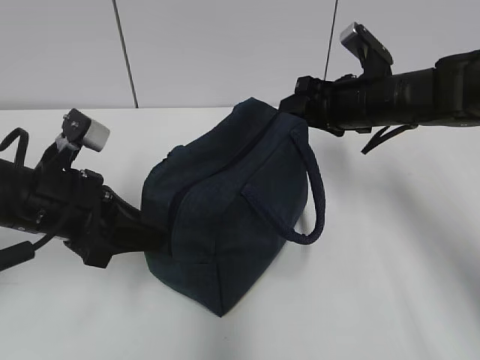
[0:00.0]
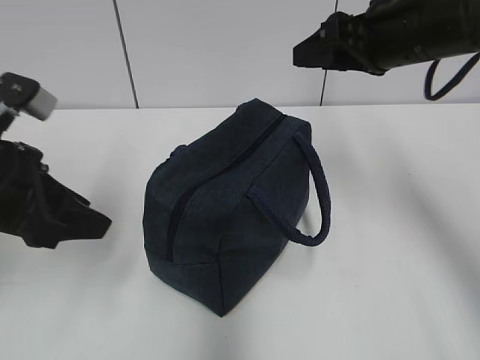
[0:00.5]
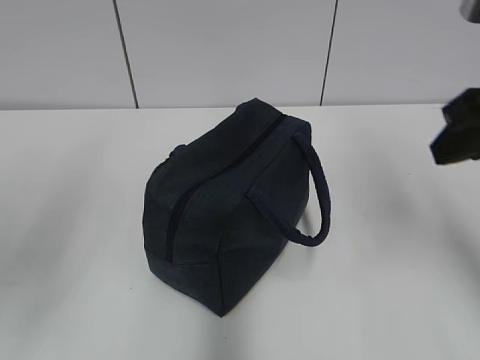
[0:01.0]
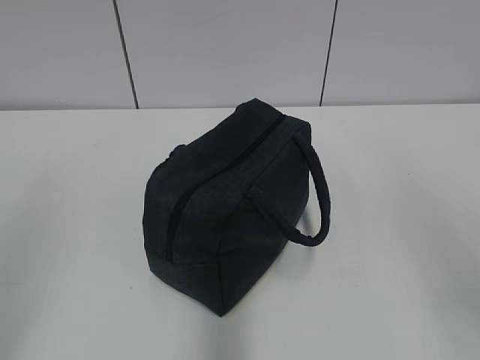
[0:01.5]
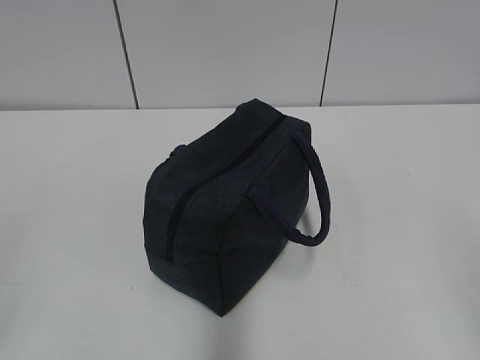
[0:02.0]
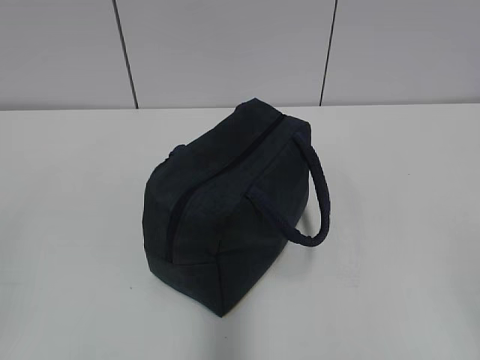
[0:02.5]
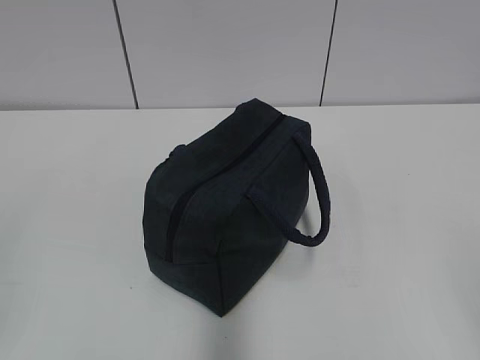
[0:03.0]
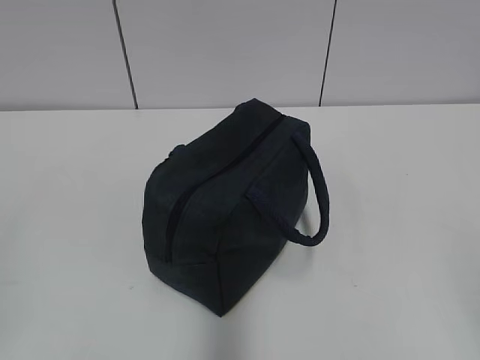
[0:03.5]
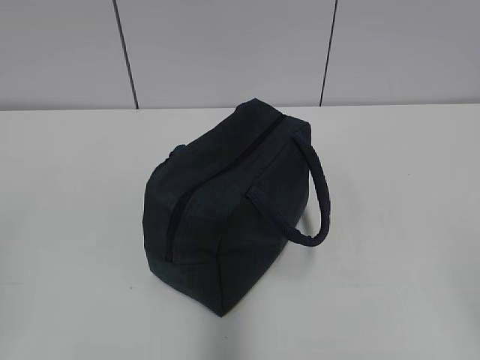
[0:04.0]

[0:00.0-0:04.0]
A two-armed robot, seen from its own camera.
0:00.0 to 0:02.0: The left gripper travels backward, to the left and upward by some 30 cm. Meanwhile the right gripper travels backward by some 40 cm.

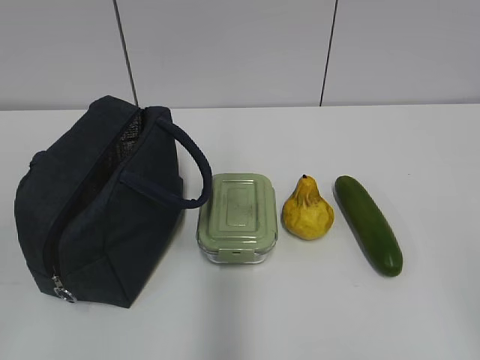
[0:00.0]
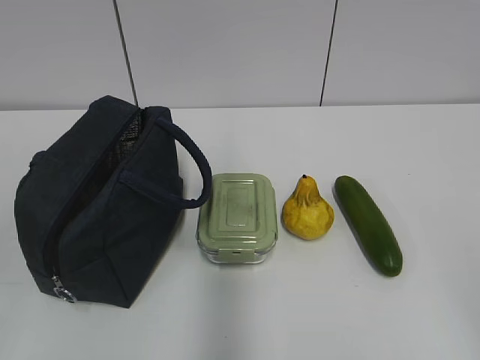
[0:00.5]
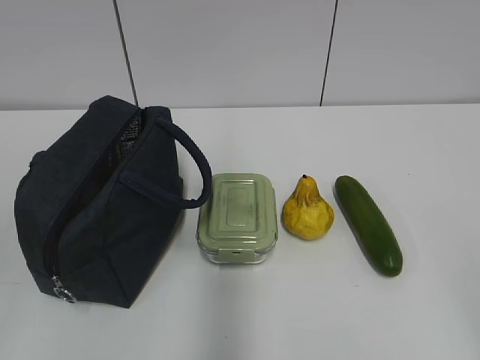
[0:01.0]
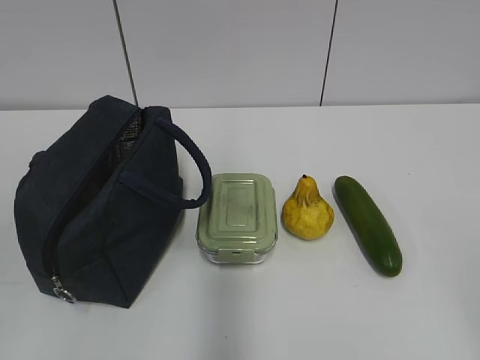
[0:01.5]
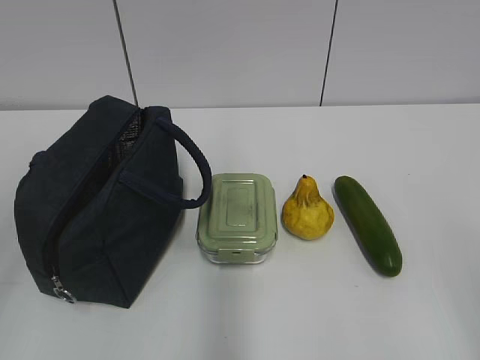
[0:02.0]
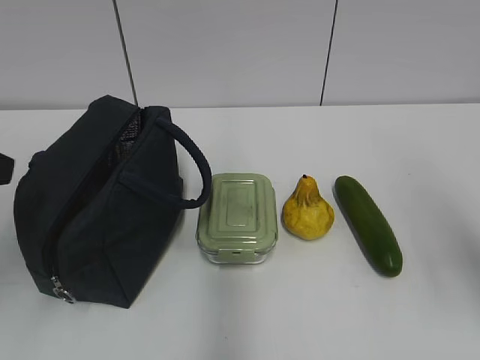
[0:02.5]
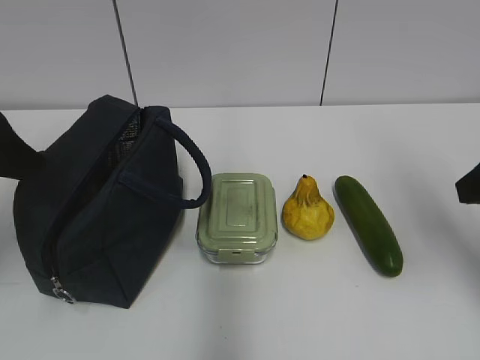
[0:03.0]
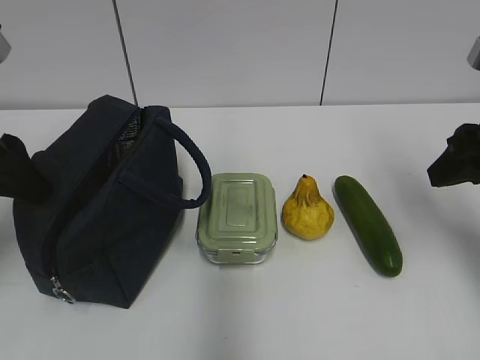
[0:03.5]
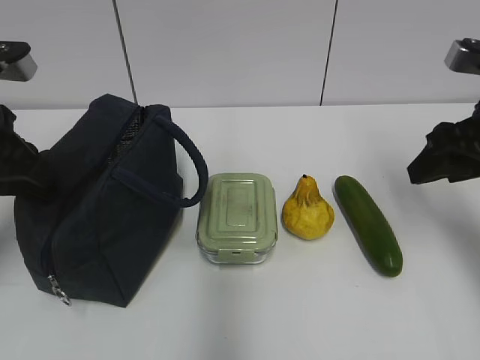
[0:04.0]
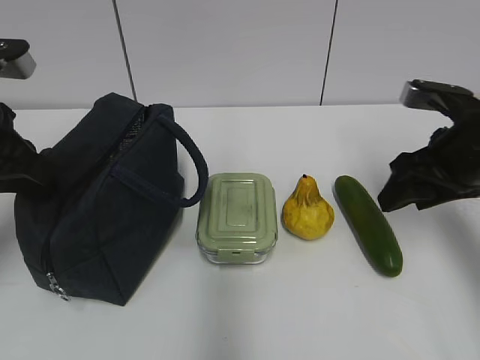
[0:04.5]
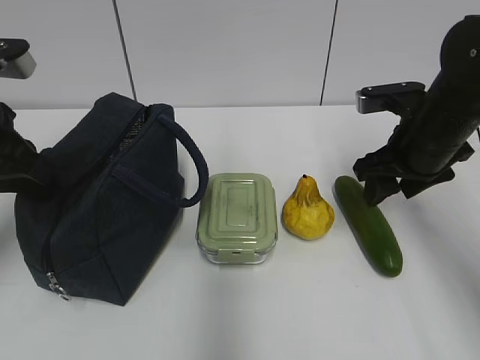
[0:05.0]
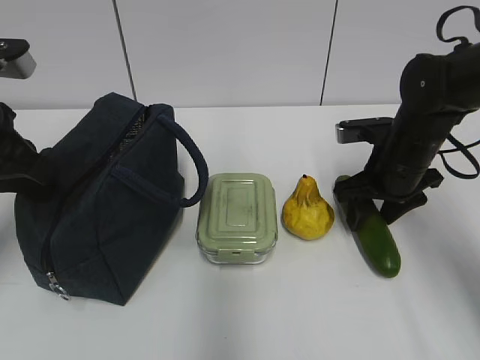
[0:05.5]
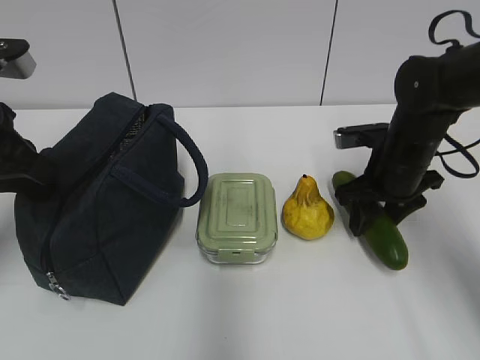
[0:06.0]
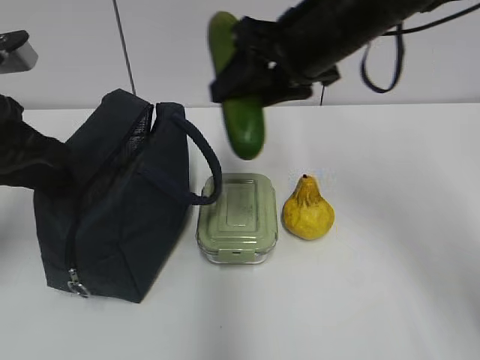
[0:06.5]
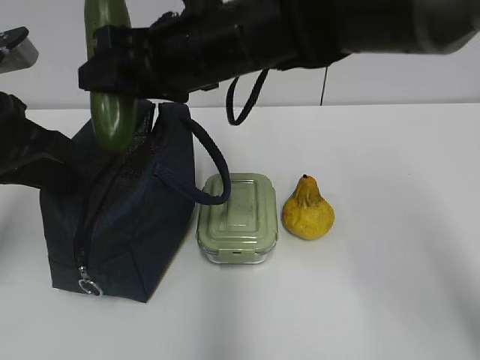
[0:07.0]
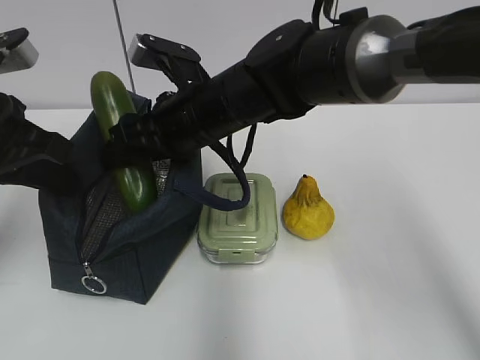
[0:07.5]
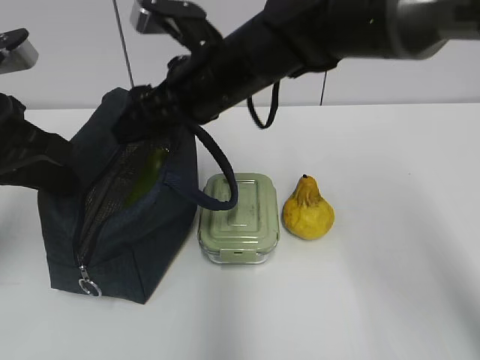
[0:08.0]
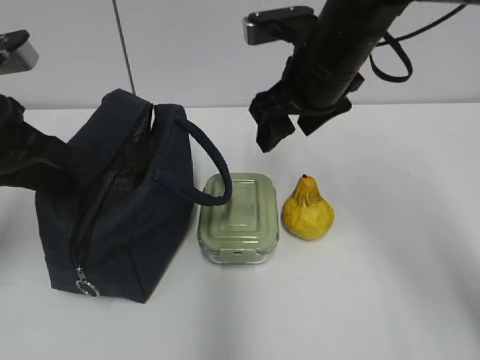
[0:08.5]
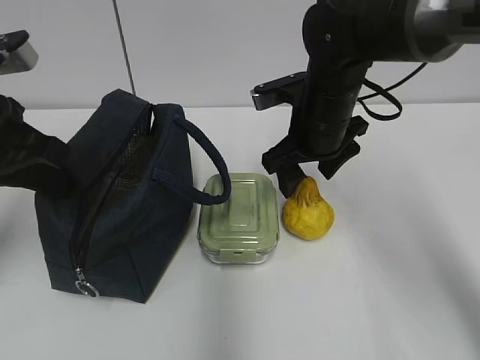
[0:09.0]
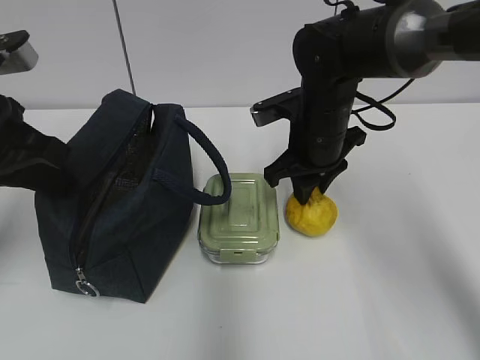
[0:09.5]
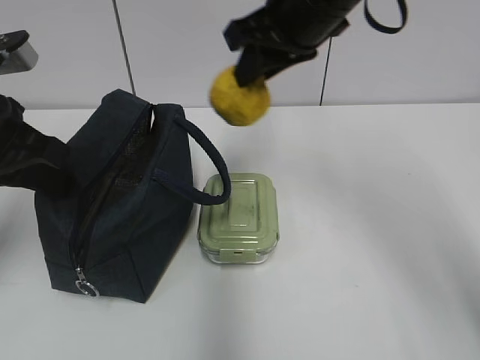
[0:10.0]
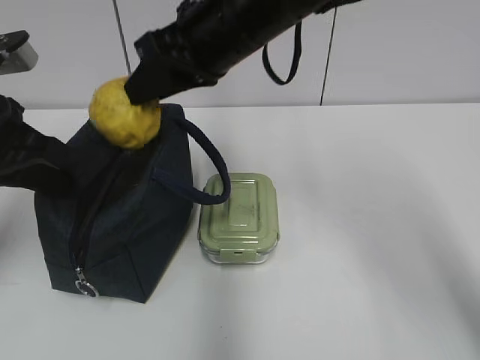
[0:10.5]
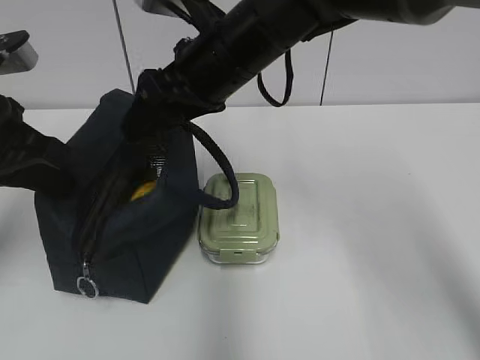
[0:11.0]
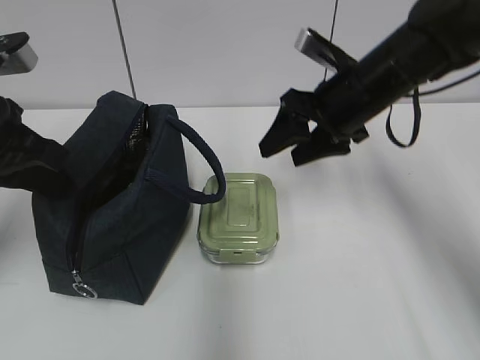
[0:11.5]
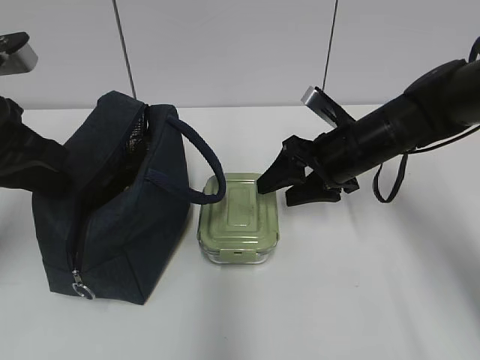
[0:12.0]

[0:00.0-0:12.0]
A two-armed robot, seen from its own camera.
Step, 0:00.0 to 0:05.5: Grab the cucumber with your right hand.
Step, 0:08.5 to 0:09.0: Grab the pear with your right hand.
Step, 0:09.5 to 0:10.5: Place it into the bag with your right hand.
0:02.0 to 0:04.0: Both grippers travel together forward, approximately 25 cm. The left gripper closes its fingers.
0:04.0 to 0:06.0: The right gripper moves downward, forward and to the left, about 15 cm.
0:06.0 to 0:08.0: The right gripper shifts some 25 cm to the left and upward.
0:08.0 to 0:10.0: The right gripper shifts roughly 10 cm to the right and upward, and closes.
0:10.0 to 0:12.0: The right gripper heads downward and to the right, covering about 20 cm, and opens up.

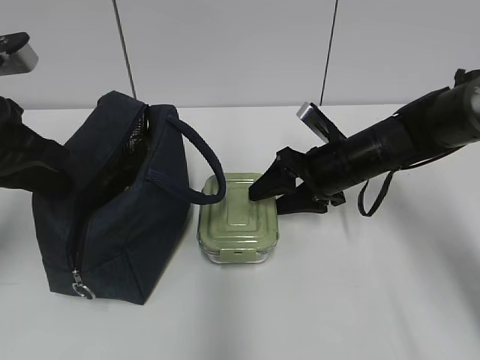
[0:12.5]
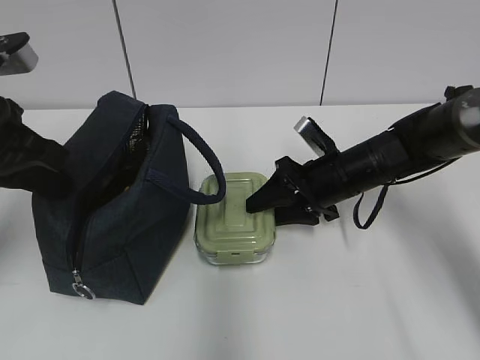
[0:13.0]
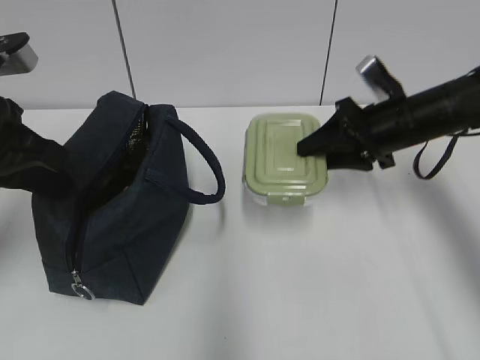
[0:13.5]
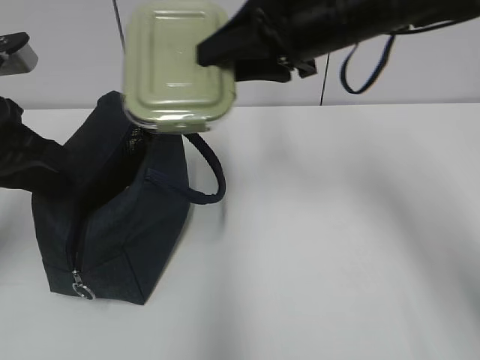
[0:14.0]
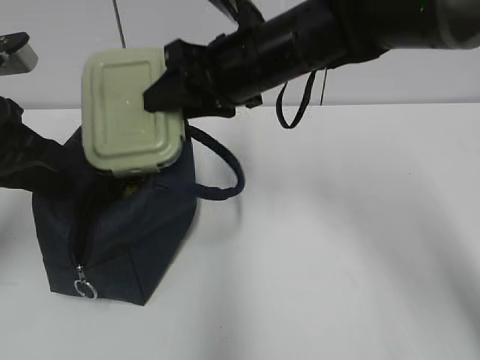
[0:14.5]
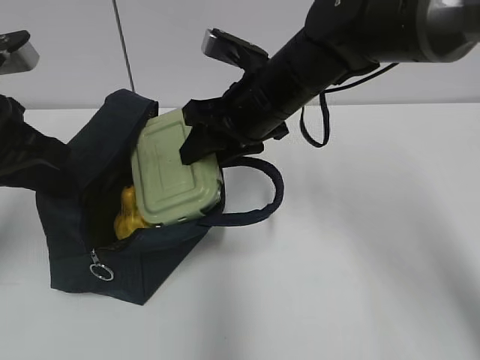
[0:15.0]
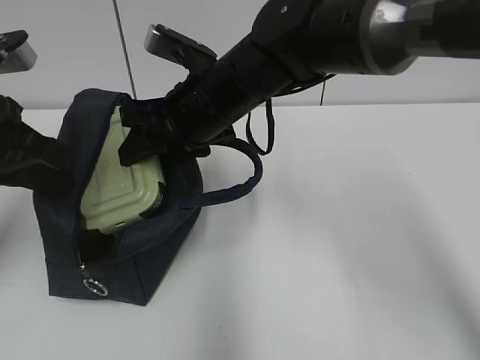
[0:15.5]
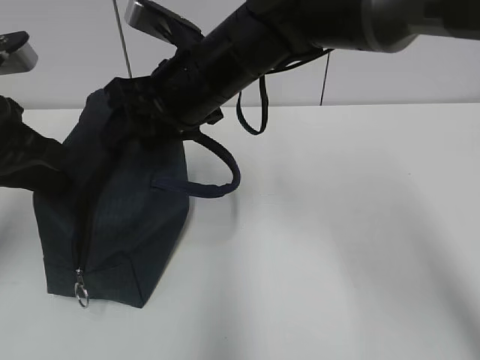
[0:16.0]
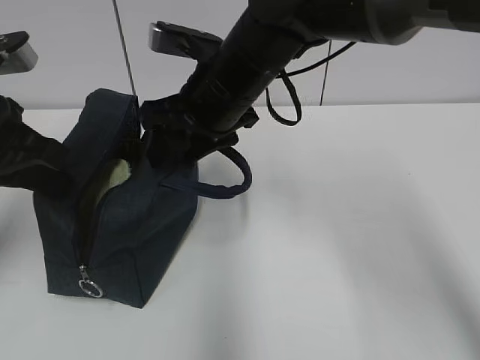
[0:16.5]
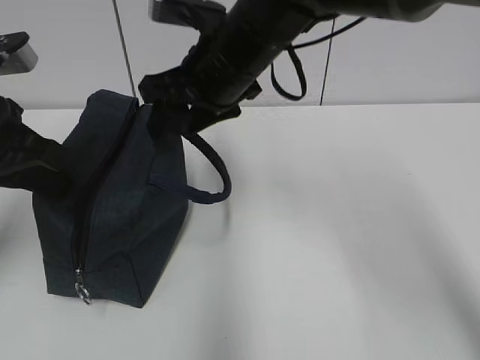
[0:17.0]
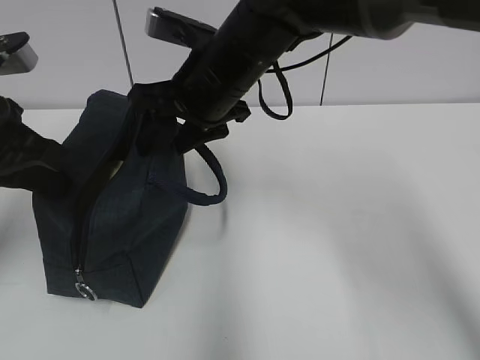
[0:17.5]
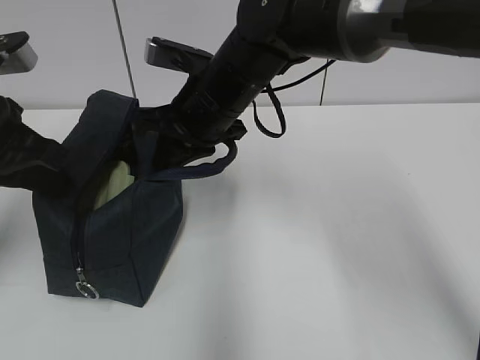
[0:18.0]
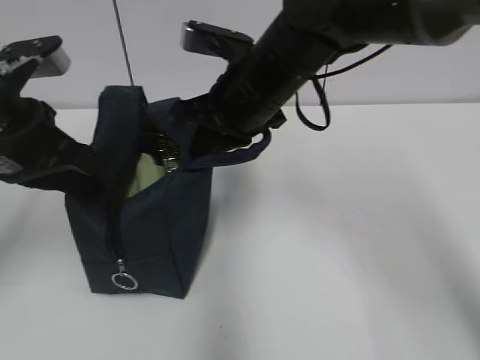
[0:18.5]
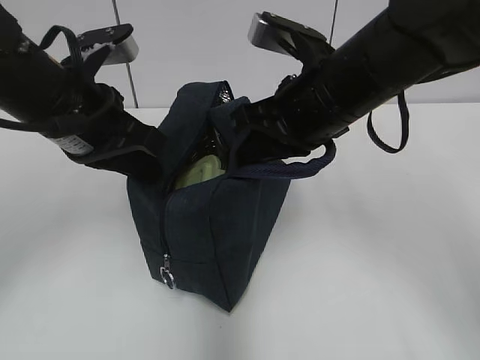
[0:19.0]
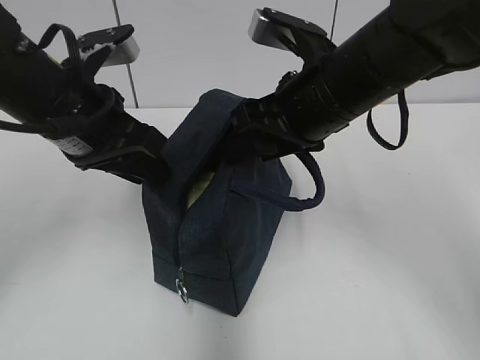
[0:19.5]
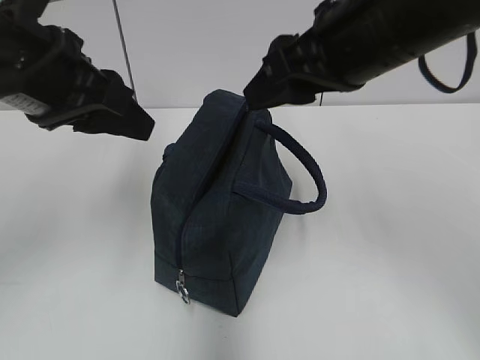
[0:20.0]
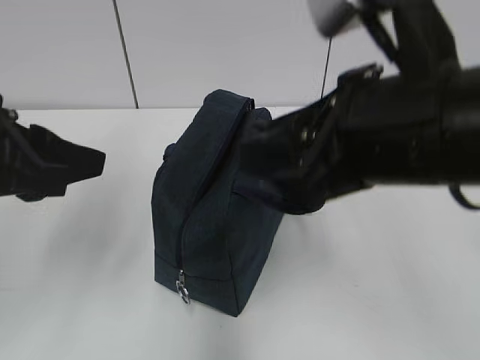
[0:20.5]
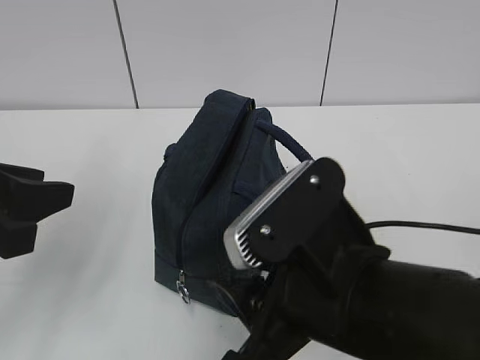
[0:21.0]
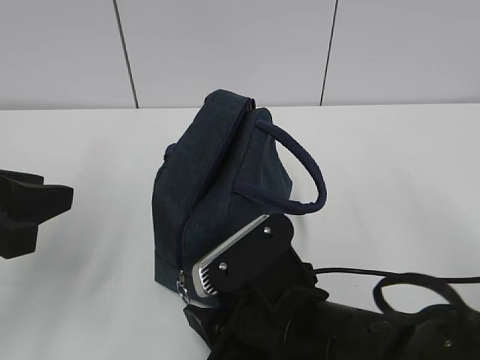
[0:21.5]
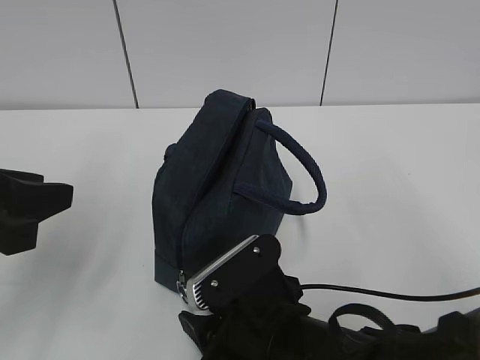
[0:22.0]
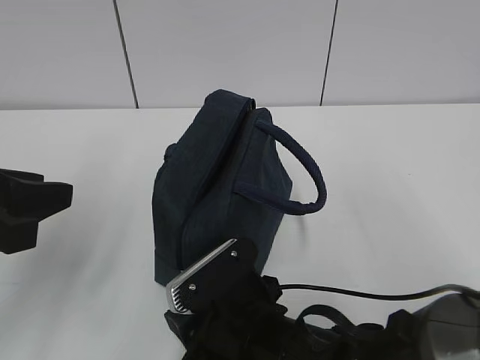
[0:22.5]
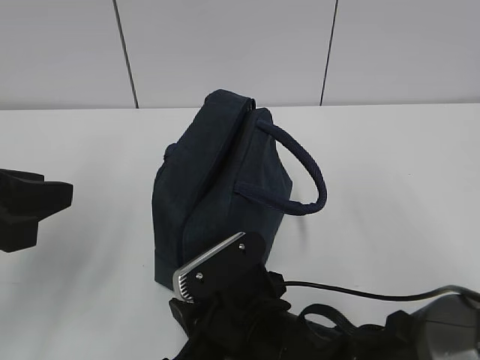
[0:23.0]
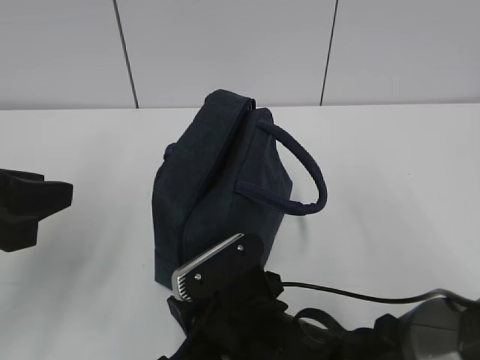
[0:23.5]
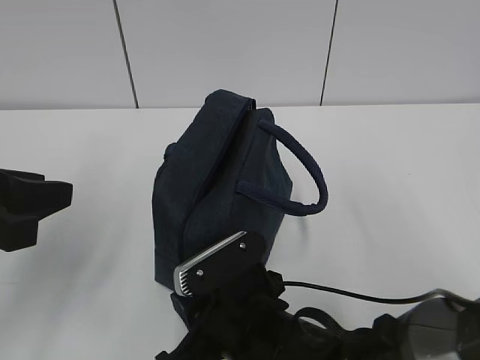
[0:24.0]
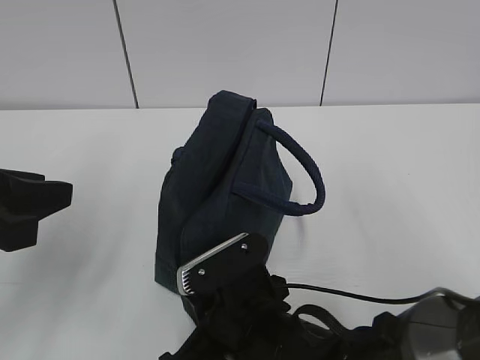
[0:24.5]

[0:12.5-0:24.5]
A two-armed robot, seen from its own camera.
Step, 0:16.0 to 0:18.0: Grab the lunch bag with your right hand.
Step, 0:18.5 to 0:19.5: Move the lunch bag to the right.
0:12.5 to 0:14.5: The right gripper goes approximately 20 cm upward and to the left.
0:16.5 to 0:18.5: The right gripper closes its fingers.
0:18.5 to 0:20.5: The right gripper travels backward by approximately 15 cm, and opens up. The left gripper travels backward by about 5 cm, and opens.
0:20.5 to 0:22.5: The right gripper goes some 20 cm downward and to the left.
0:22.5 to 0:24.5: The right gripper closes.
